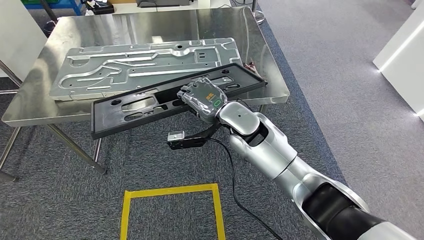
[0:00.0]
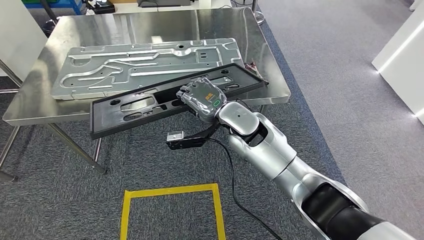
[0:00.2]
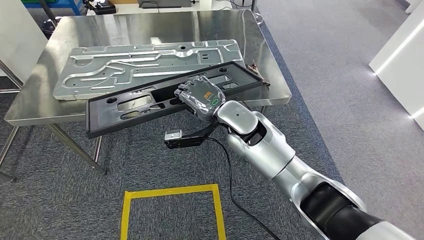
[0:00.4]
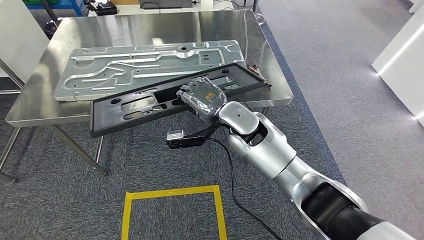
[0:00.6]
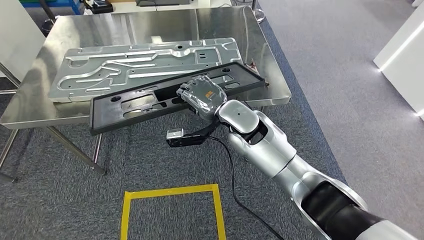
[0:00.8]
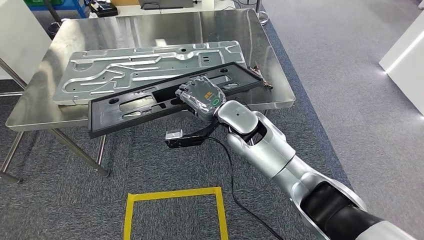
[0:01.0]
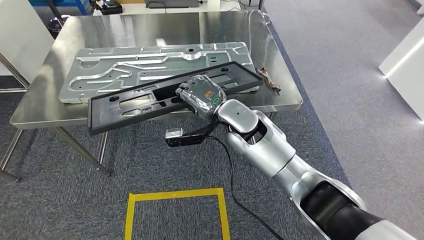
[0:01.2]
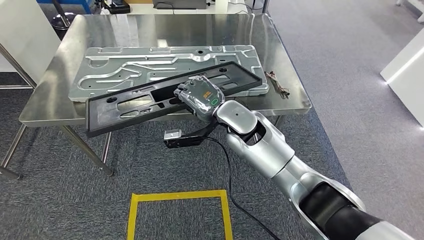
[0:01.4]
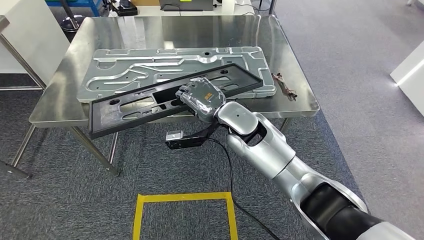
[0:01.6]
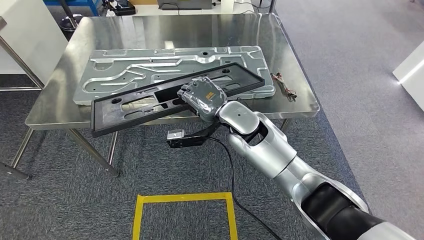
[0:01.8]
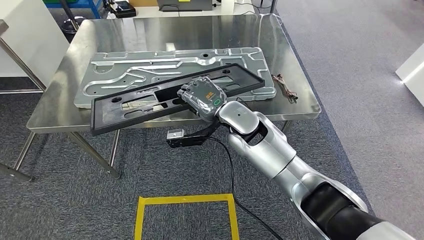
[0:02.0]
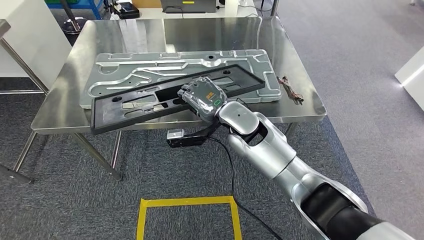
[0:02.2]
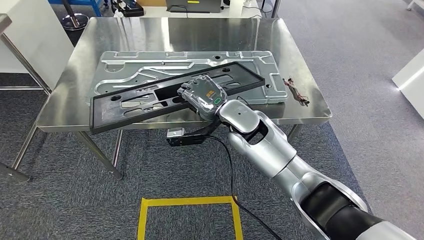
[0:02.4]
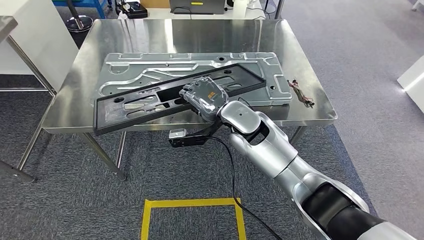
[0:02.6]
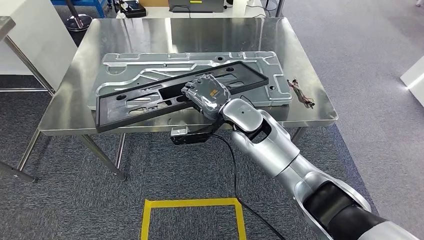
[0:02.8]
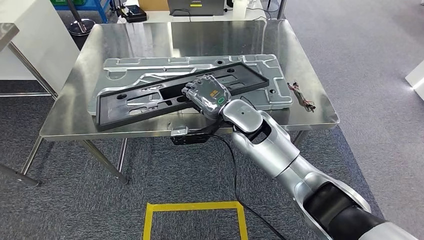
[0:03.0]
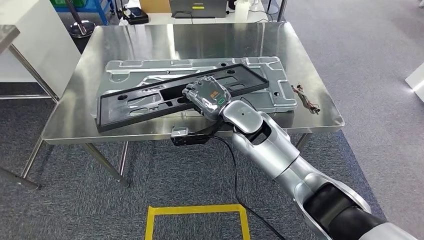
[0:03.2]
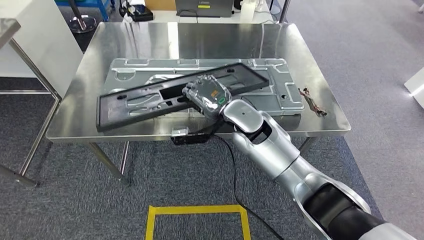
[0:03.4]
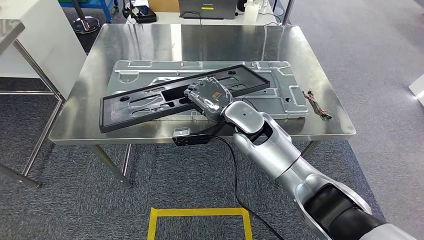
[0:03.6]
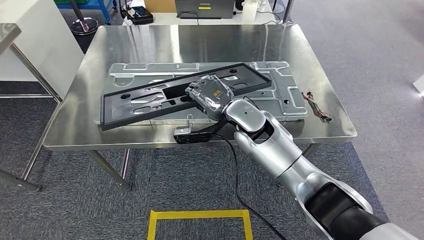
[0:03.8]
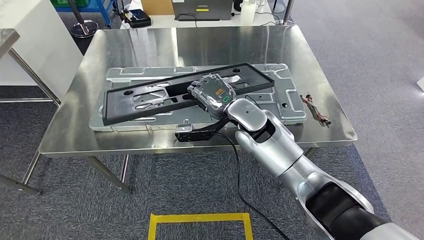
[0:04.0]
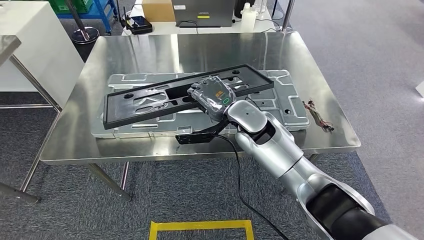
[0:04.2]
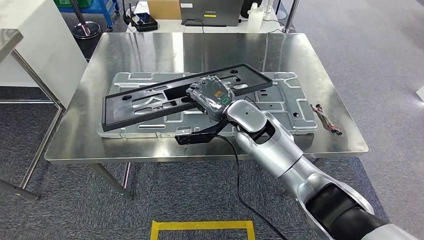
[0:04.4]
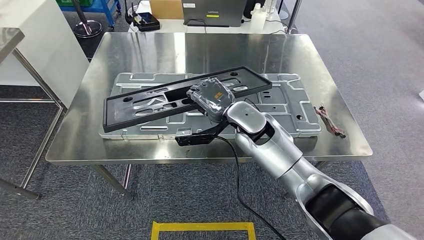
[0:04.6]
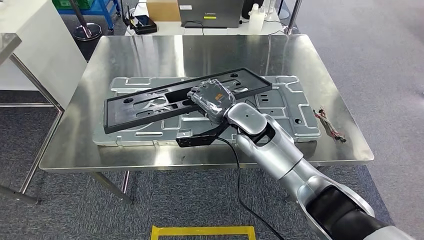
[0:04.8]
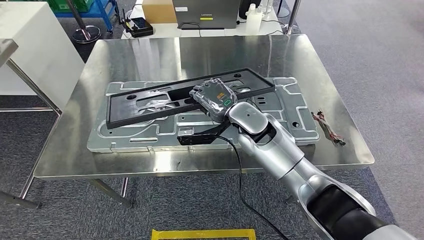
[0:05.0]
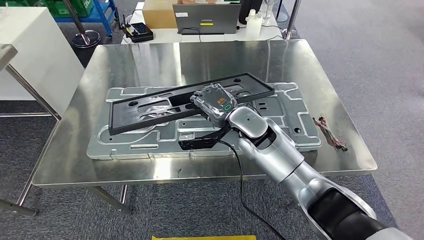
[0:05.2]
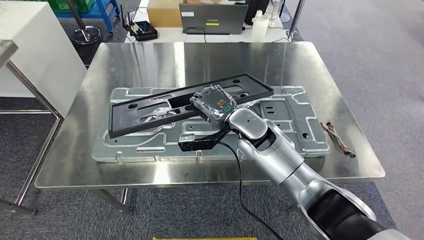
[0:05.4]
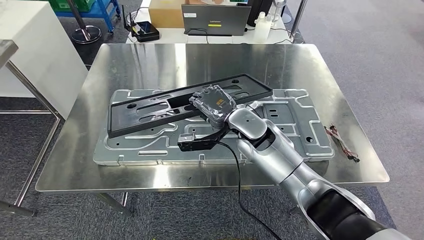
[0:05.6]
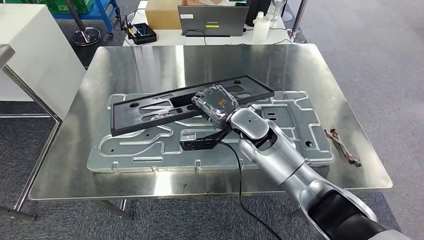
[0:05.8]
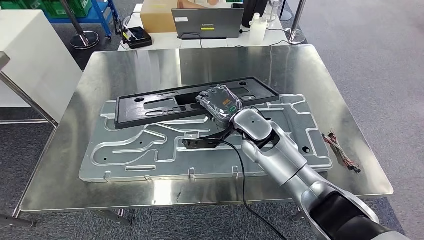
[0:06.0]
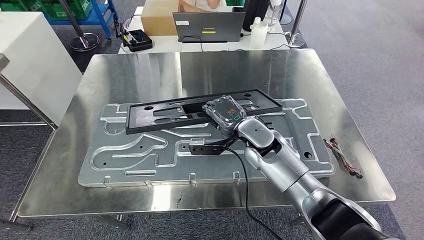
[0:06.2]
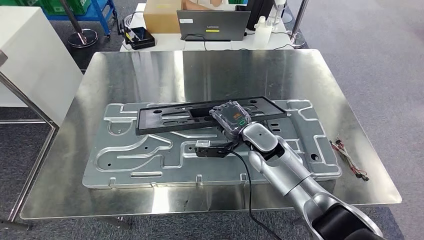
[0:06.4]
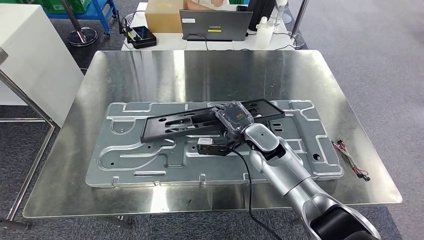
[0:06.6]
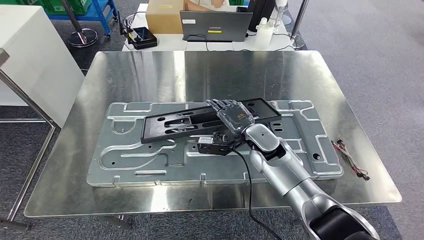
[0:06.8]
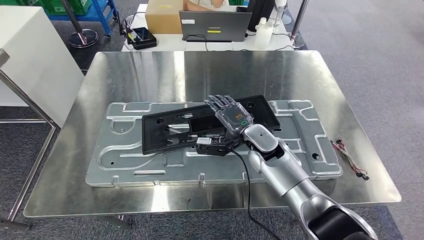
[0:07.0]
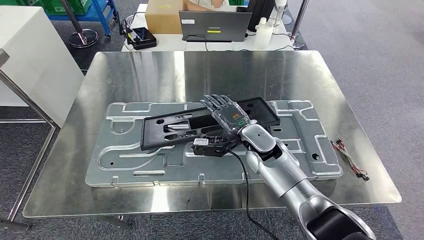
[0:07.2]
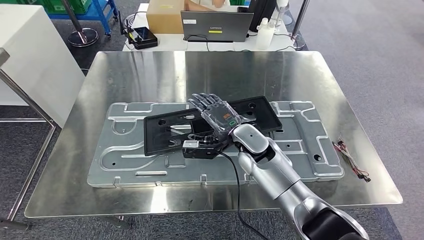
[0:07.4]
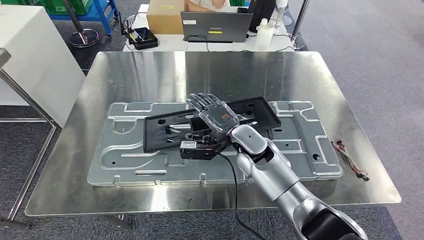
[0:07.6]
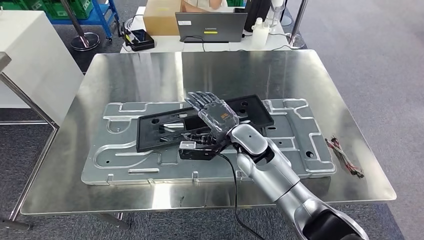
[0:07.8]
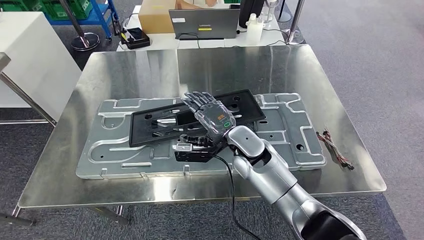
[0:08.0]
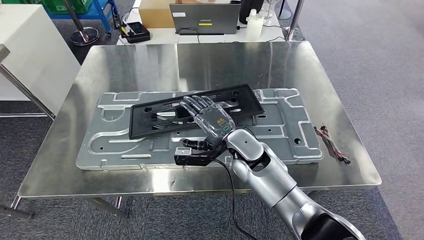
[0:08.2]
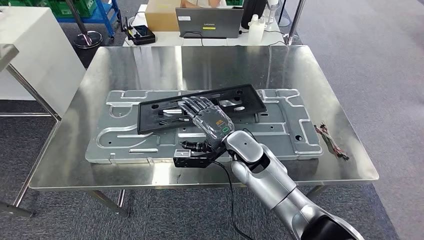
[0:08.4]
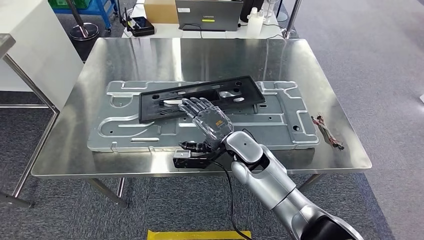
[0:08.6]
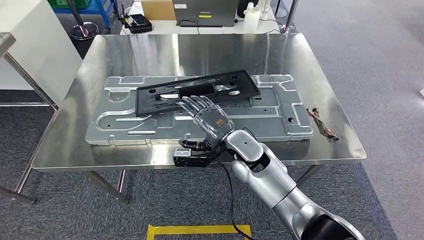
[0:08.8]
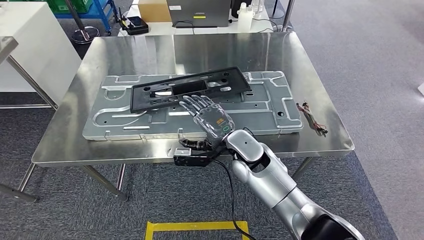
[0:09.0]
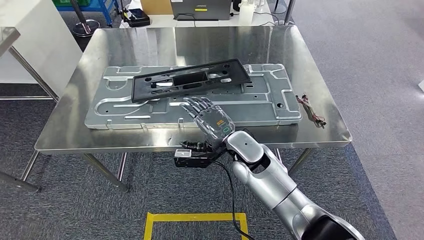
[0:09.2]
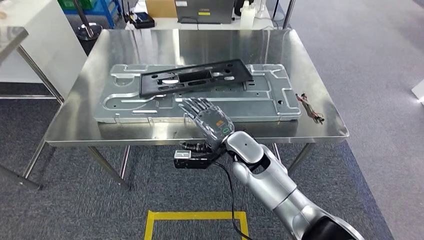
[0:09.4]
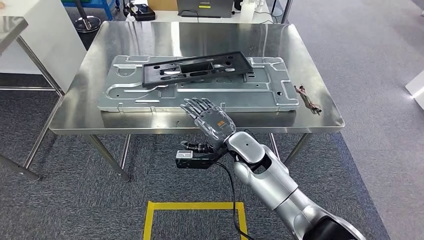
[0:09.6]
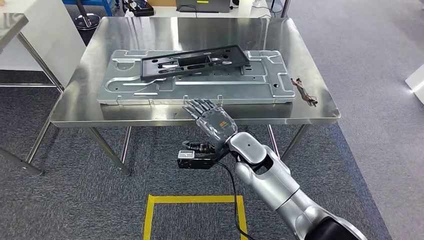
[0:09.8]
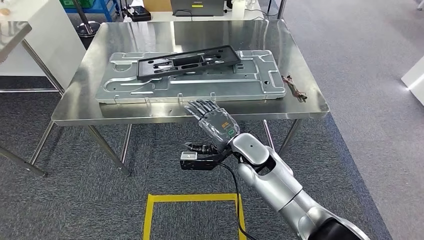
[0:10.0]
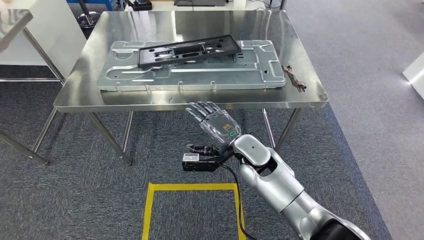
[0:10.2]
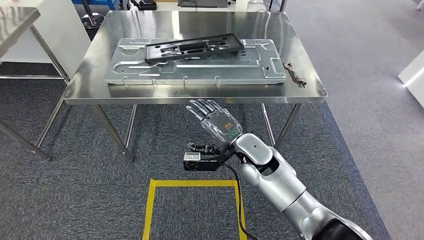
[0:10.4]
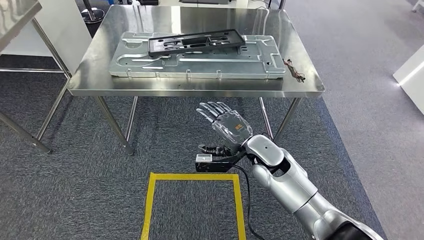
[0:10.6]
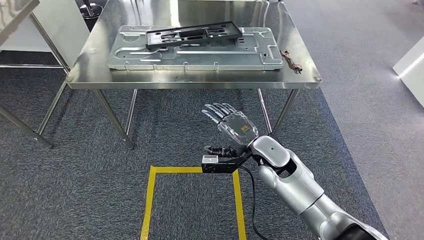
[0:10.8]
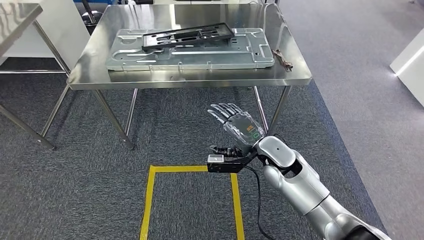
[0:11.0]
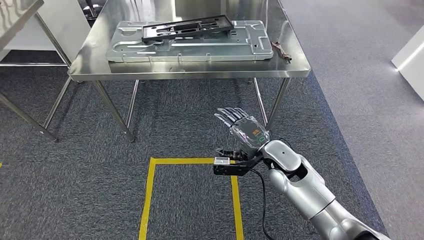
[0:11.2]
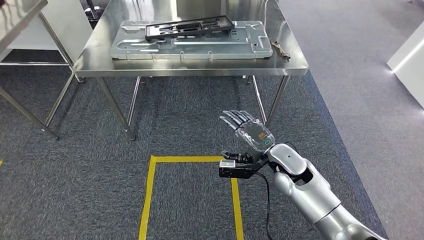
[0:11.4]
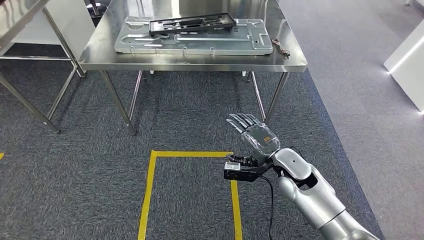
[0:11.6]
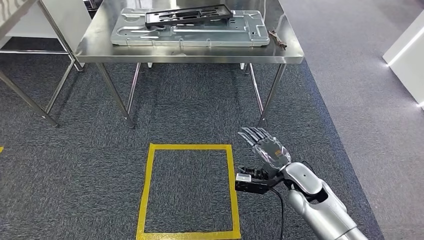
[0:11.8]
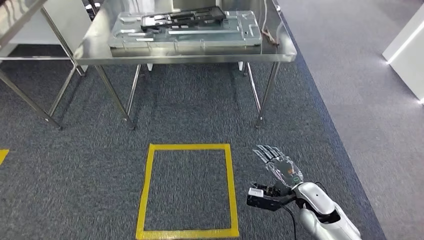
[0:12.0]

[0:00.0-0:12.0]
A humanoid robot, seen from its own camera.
Step, 0:00.0 to 0:09.2: Insert the large material into the corresponding slot on the workbench.

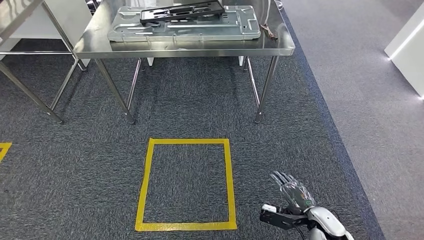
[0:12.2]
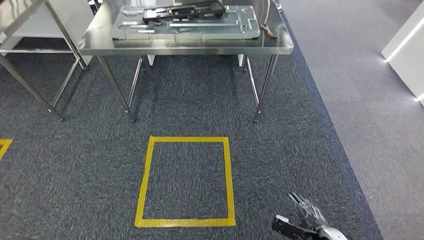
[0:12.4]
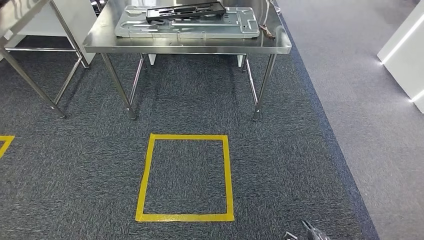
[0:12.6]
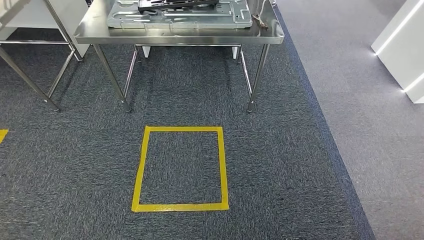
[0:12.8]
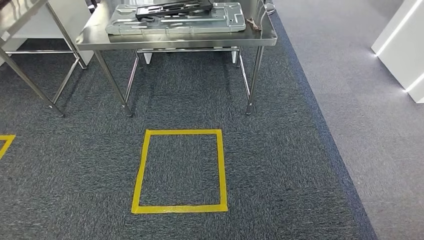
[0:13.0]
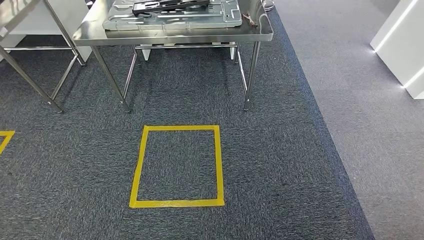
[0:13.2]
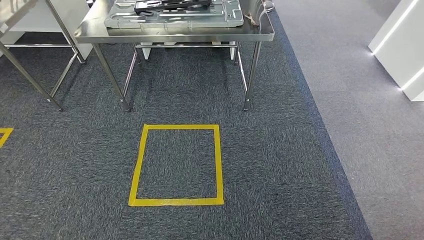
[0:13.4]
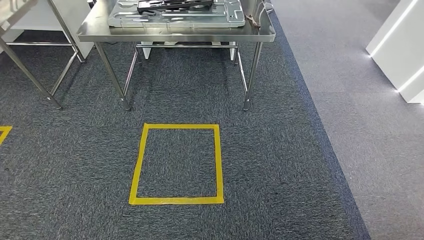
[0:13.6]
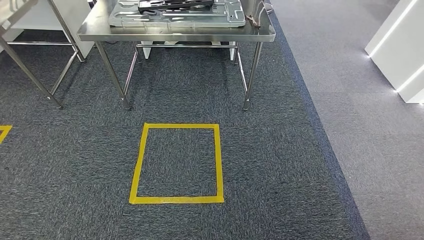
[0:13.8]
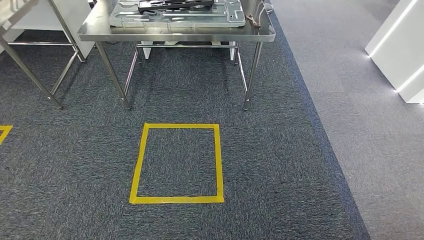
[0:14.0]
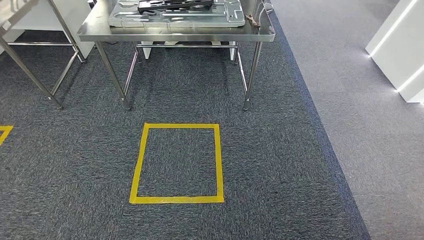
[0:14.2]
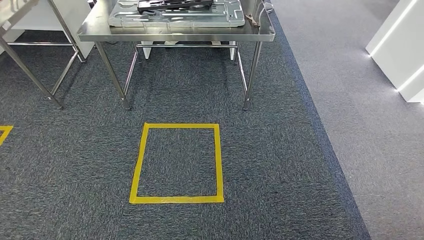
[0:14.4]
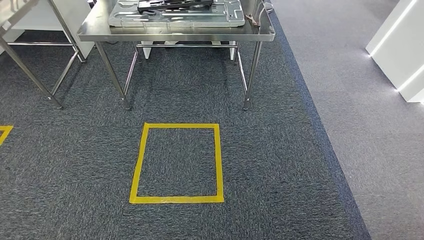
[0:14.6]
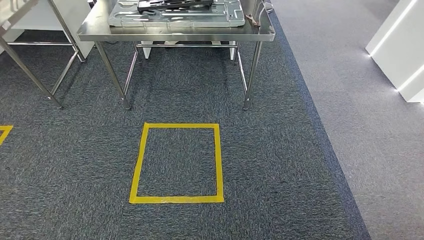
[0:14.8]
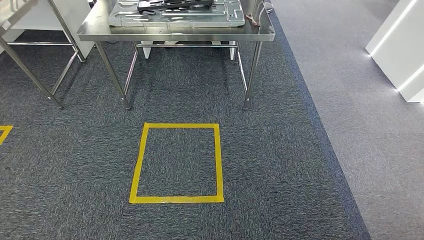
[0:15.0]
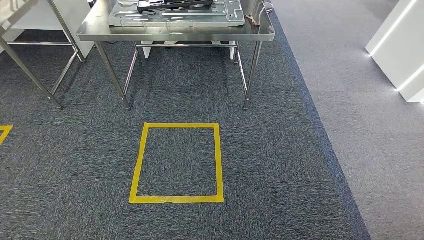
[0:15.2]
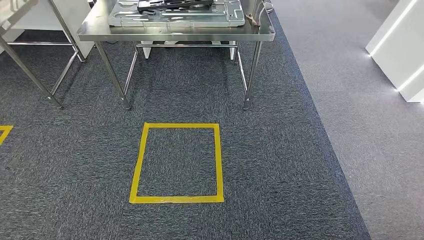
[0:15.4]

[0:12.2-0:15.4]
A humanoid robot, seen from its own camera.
Step, 0:12.2 to 0:15.2: Move to the initial position of the shelf.
